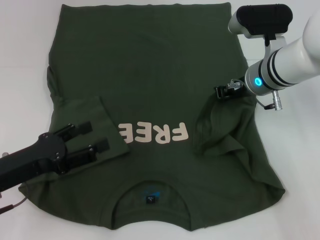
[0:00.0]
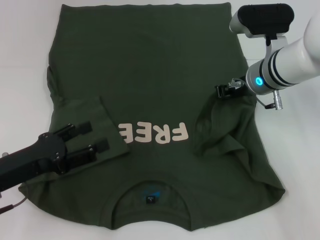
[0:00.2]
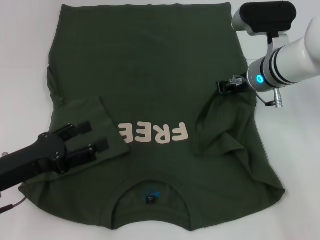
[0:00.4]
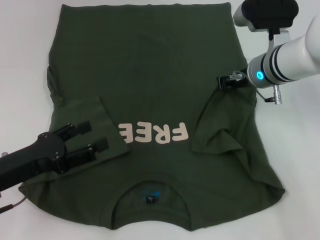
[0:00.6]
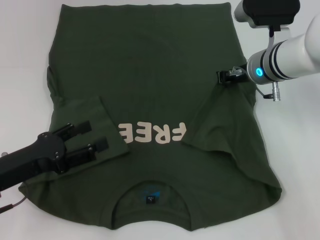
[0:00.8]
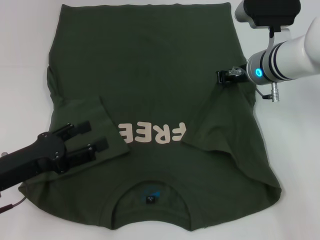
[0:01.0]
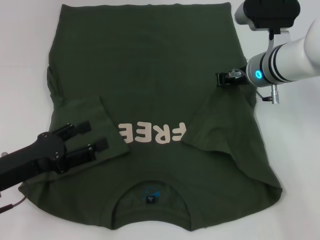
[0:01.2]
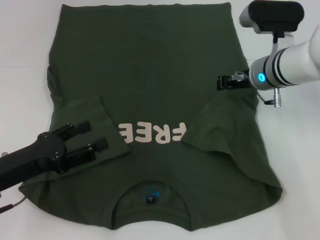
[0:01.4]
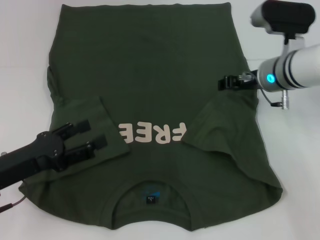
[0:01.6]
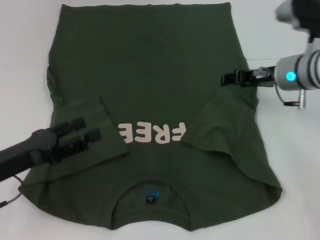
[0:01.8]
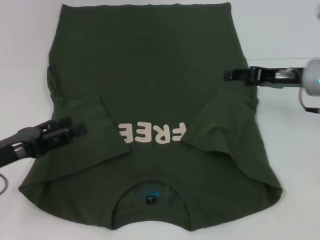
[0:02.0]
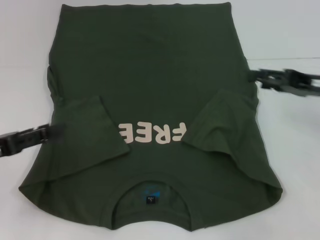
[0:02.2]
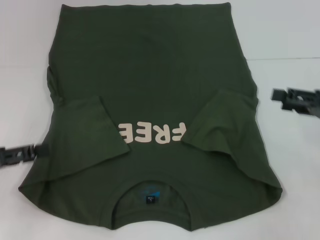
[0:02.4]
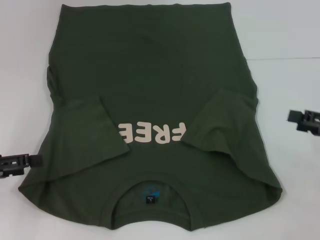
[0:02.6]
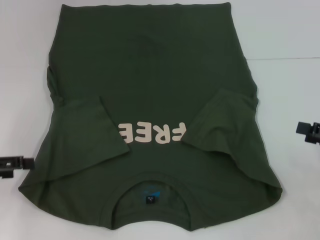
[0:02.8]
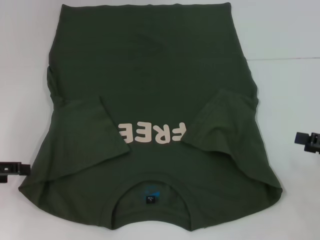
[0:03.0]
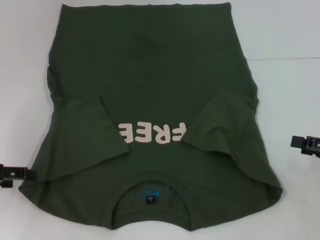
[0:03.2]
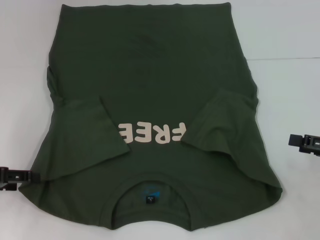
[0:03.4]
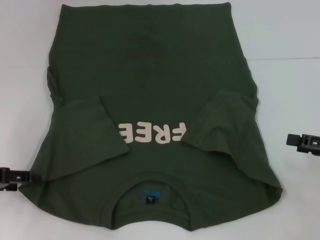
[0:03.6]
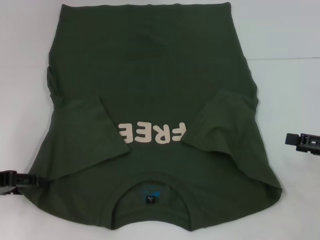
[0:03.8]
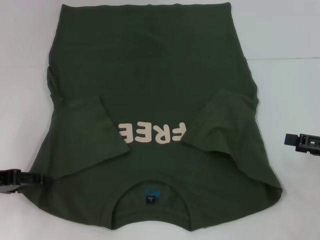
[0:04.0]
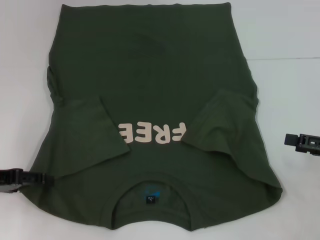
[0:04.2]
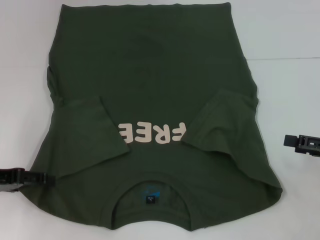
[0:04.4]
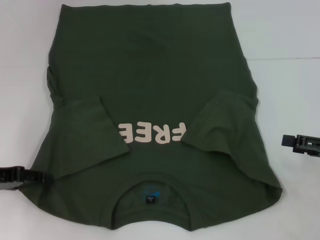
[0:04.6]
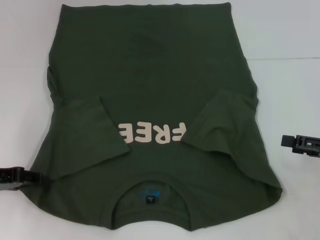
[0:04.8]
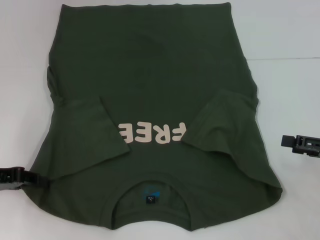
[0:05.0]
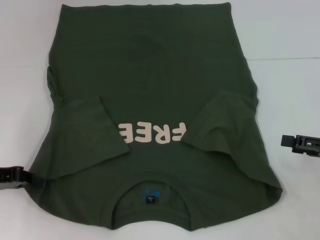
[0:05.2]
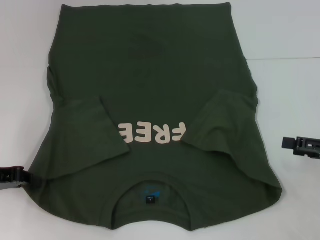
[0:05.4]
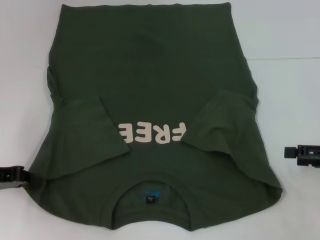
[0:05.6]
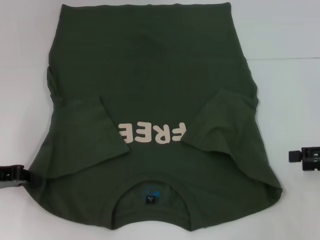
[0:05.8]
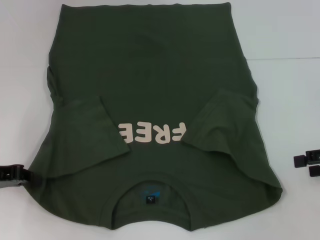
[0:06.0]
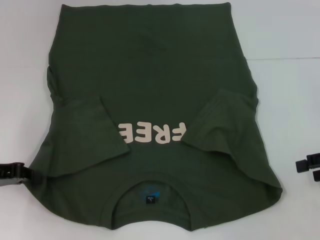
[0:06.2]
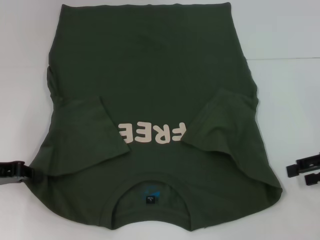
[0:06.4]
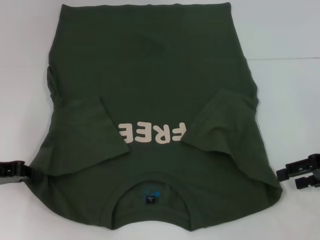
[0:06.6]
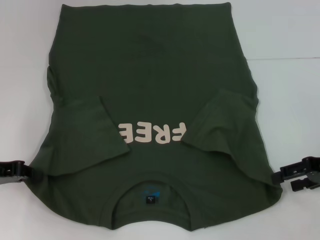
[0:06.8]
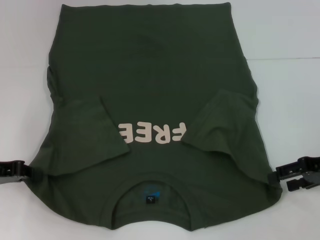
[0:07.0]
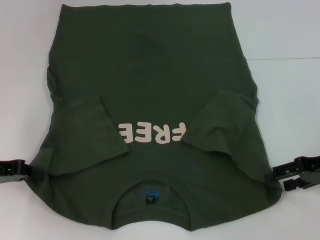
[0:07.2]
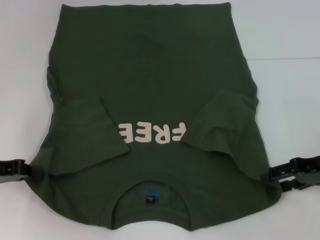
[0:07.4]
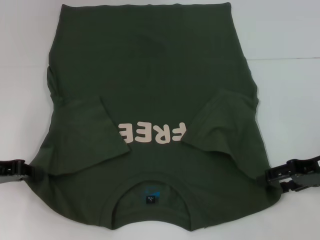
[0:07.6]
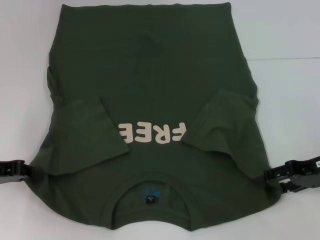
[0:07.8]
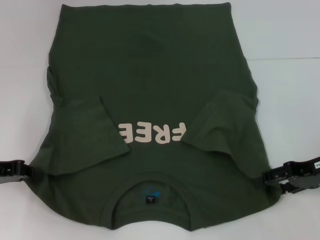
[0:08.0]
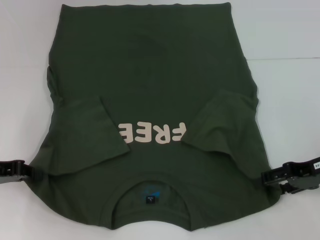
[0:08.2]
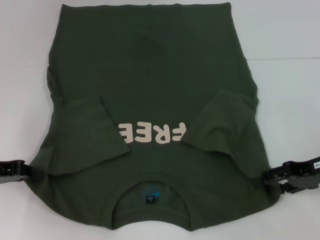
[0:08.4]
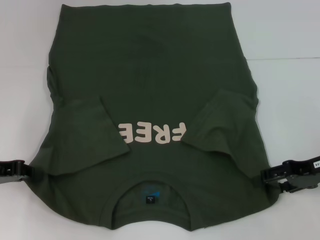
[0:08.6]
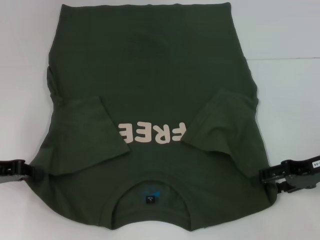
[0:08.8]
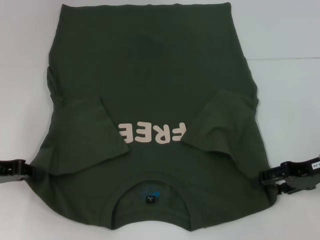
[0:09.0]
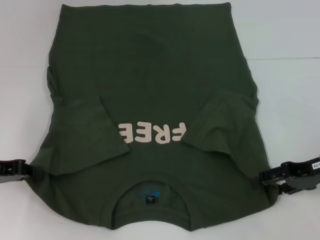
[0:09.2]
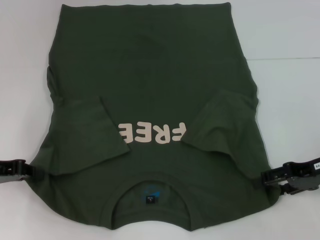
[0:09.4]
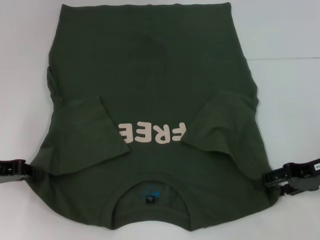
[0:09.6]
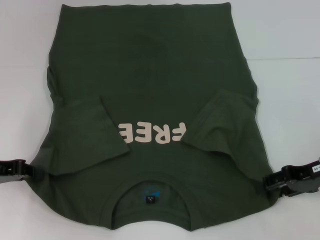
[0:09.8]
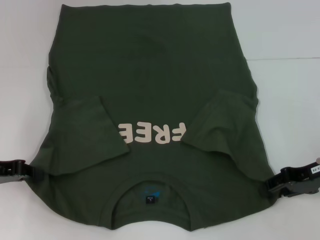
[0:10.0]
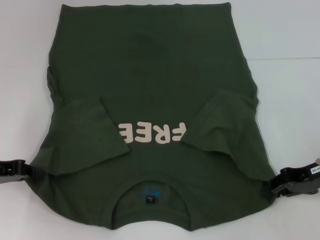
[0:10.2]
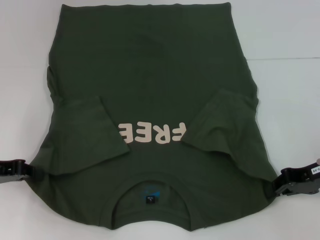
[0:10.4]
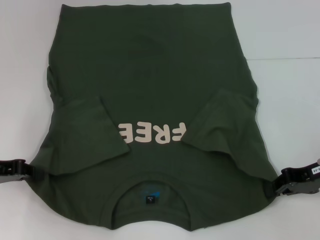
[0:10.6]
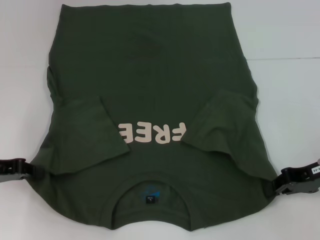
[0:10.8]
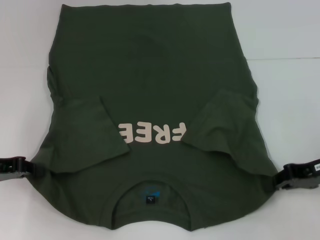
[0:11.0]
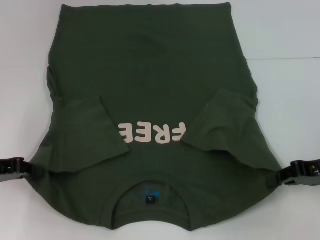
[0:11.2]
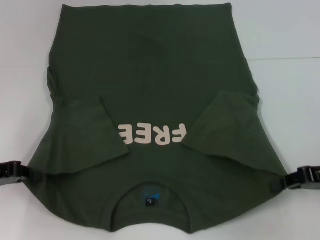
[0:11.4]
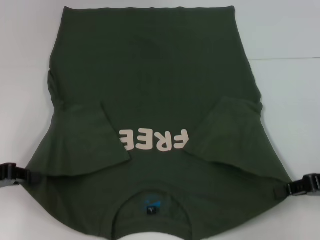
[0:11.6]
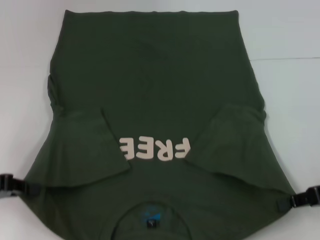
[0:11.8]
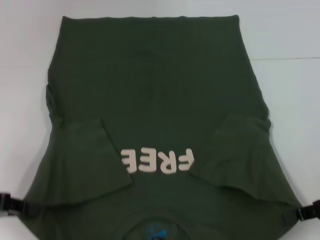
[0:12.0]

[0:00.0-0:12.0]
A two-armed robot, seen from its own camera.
Step, 0:01.4 to 0:05.6: Grab the bottom left corner with your left hand.
Step, 0:05.8 to 0:10.4: Grab the bottom right corner with your right hand.
0:00.0 to 0:01.6: The grippers make only small movements.
0:01.6 to 0:03.0: The left gripper is displaced to the left by approximately 10 cm. The right gripper goes about 25 cm to the right and backward, and opens its fingers.
0:03.0 to 0:04.4: The grippers move only a little.
0:04.4 to 0:06.0: The left gripper closes up.
0:06.0 to 0:07.6: The right gripper heads to the left, covering about 5 cm.
0:07.6 to 0:09.0: Neither gripper changes place.
0:09.0 to 0:10.4: The right gripper closes.
0:10.4 to 0:12.0: The left gripper shifts by approximately 5 cm, while the right gripper is displaced backward by roughly 5 cm.

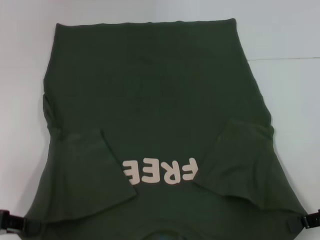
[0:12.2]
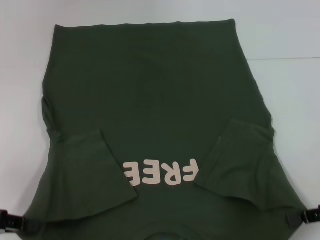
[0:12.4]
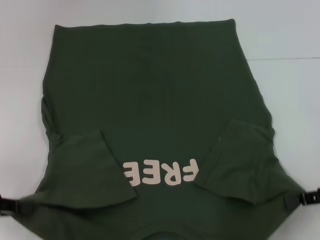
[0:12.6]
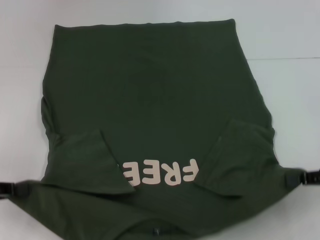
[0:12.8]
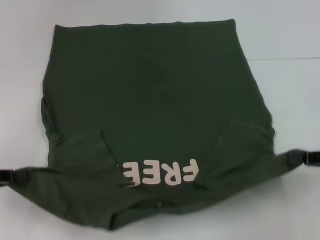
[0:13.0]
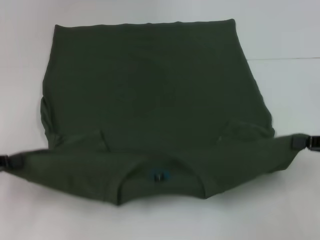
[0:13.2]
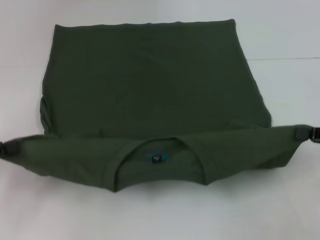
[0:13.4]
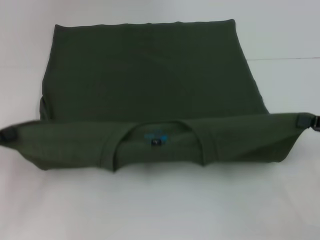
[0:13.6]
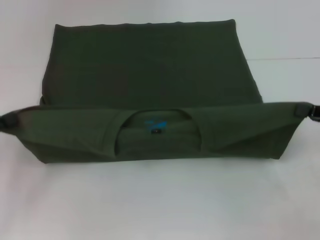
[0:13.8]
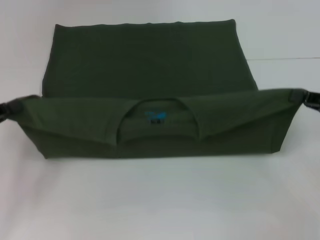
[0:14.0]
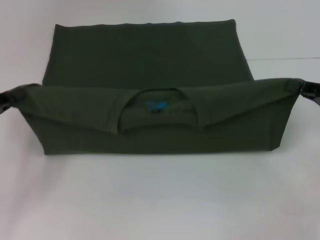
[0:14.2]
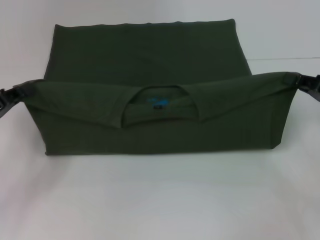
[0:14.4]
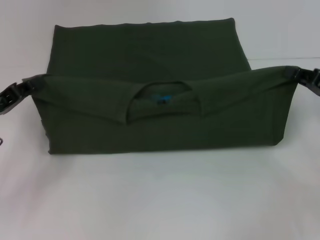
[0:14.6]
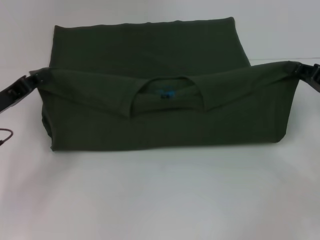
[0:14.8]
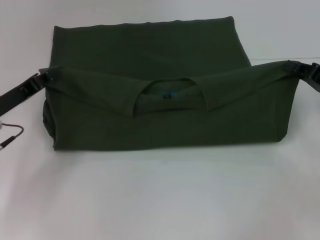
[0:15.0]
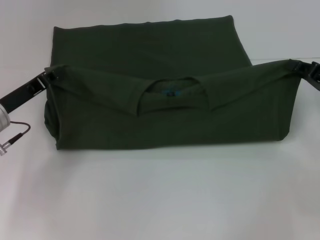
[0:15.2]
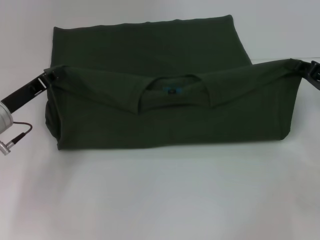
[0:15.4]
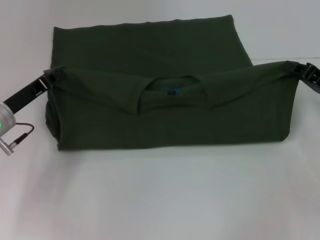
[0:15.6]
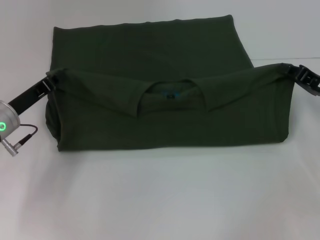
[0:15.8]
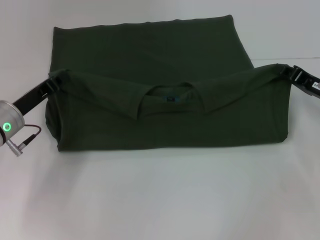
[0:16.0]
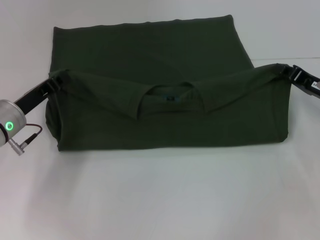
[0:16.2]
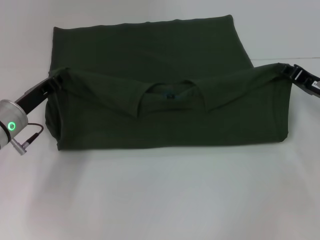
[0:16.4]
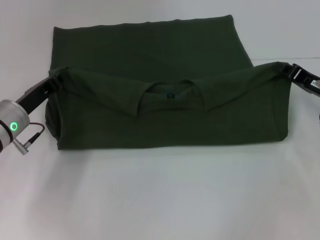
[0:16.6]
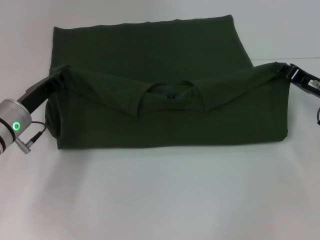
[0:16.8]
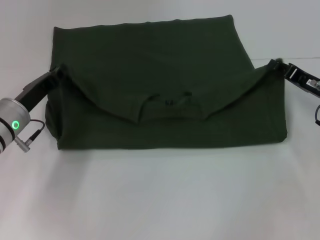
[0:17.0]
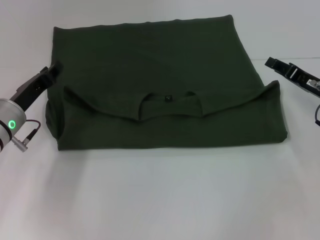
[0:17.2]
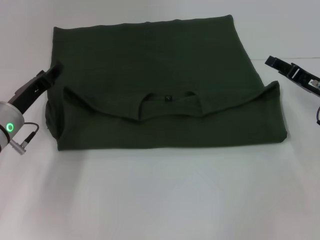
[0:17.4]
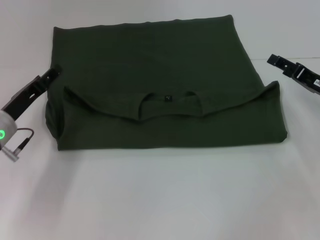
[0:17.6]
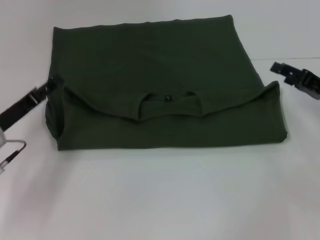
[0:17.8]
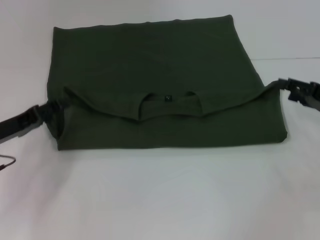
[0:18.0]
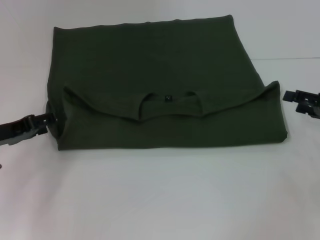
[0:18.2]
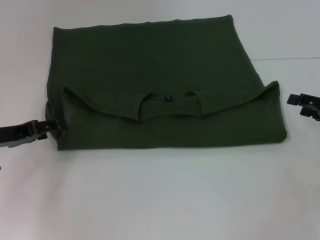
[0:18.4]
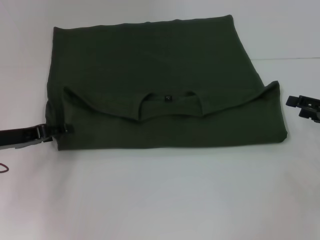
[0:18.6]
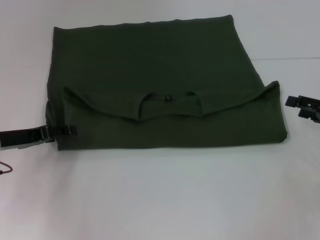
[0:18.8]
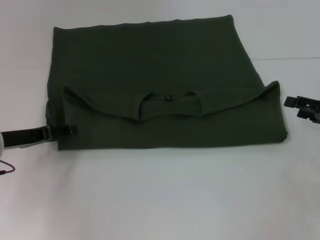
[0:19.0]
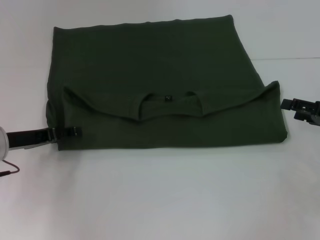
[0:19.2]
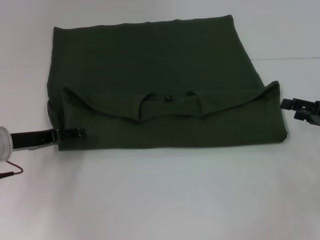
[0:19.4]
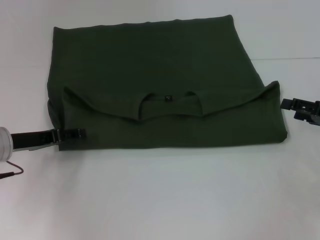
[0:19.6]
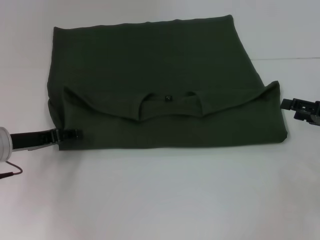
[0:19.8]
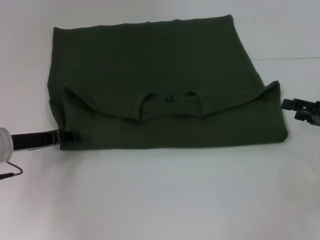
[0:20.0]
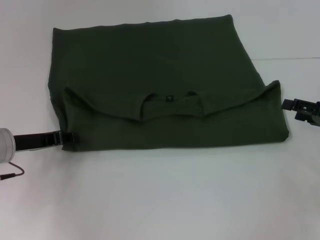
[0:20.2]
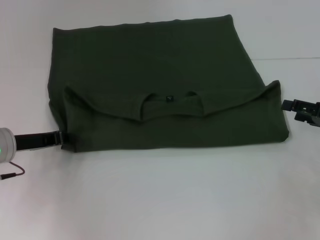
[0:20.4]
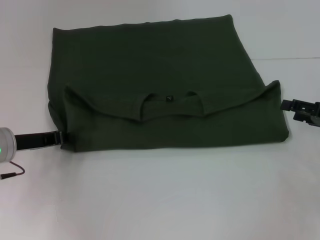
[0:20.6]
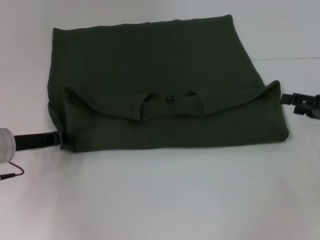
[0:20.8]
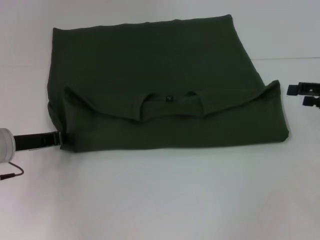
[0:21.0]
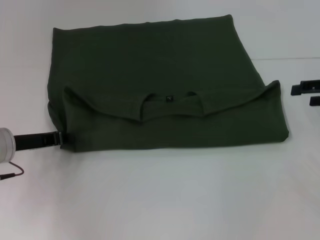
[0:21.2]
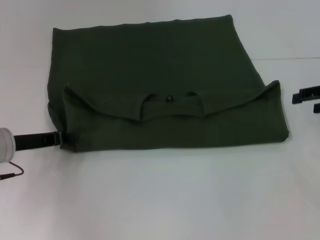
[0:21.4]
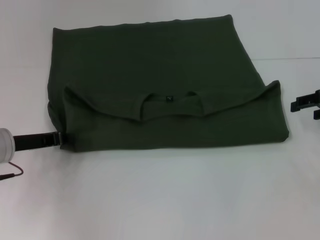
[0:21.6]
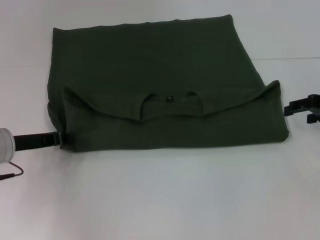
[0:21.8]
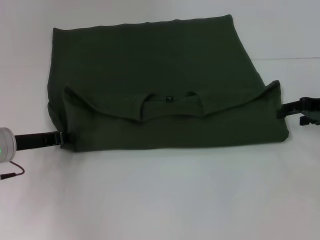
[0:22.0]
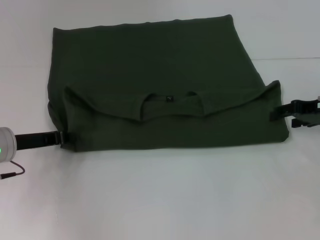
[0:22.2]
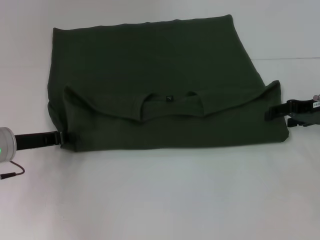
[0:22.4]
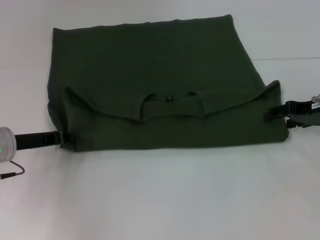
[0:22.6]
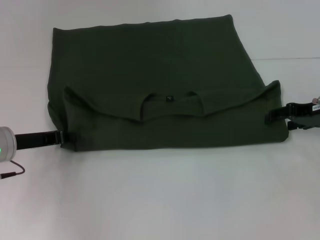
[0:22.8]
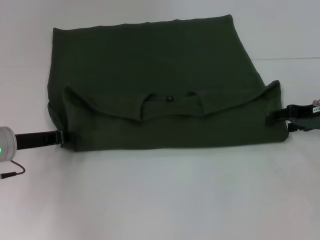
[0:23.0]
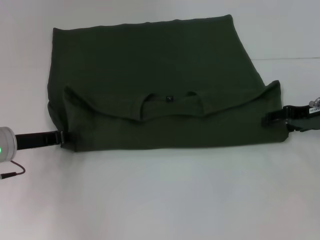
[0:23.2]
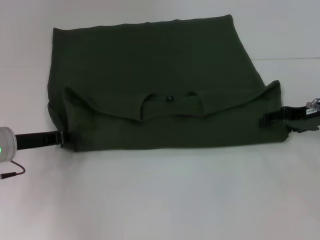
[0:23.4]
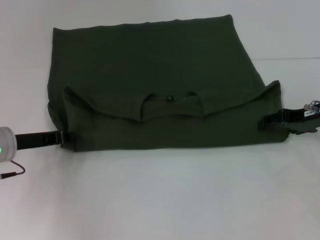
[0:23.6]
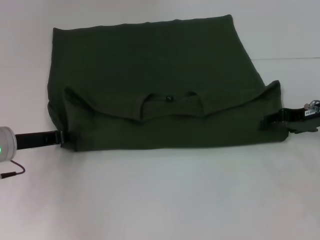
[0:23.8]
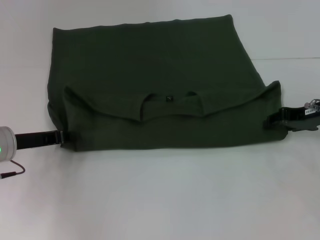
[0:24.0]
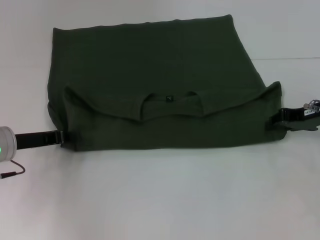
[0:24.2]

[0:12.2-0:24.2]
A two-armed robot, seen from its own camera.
Step, 0:12.2 to 0:17.2: Fold the clothes with your left hand.
Step, 0:12.2 to 0:17.2: Fold the clothes with your right hand.
0:12.2 to 0:13.8: The right gripper changes place by roughly 5 cm.
0:13.8 to 0:15.2: The left gripper heads to the right and forward, covering roughly 10 cm, while the right gripper moves forward, roughly 5 cm.
0:15.2 to 0:16.6: There are only small adjustments of the grippers.
0:16.6 to 0:18.2: The right gripper travels to the right by some 5 cm, and opens. Meanwhile the left gripper moves to the left, roughly 5 cm, and opens its fingers.
0:18.2 to 0:19.8: The grippers move only a little.
0:19.8 to 0:21.2: The right gripper travels upward by approximately 5 cm. Meanwhile the left gripper closes its fingers.
0:21.2 to 0:22.6: The right gripper shifts roughly 5 cm to the left.
0:22.6 to 0:24.2: The right gripper closes its fingers.
